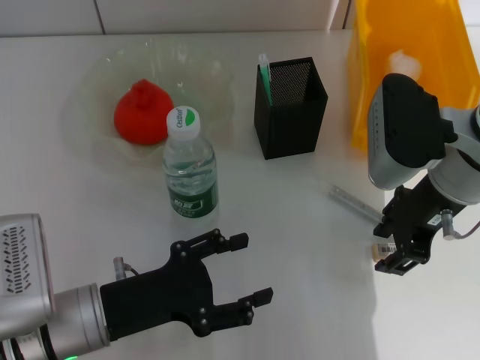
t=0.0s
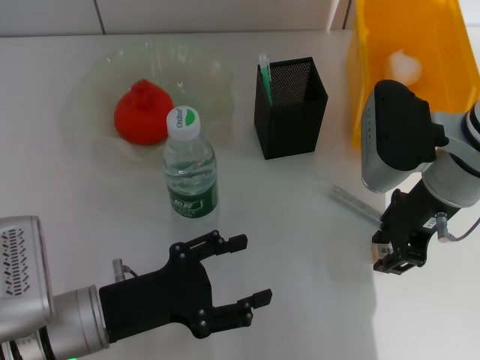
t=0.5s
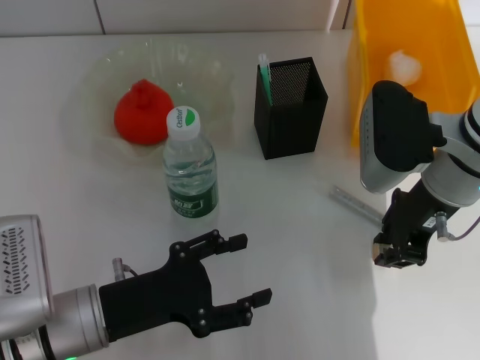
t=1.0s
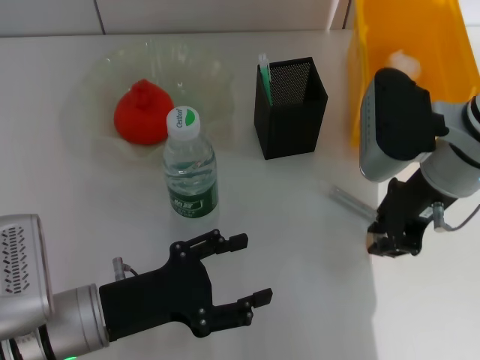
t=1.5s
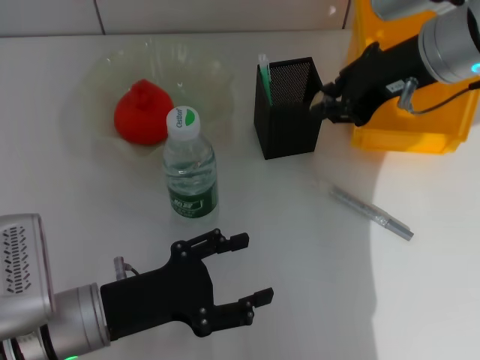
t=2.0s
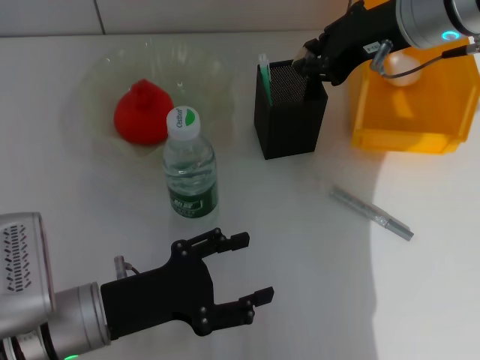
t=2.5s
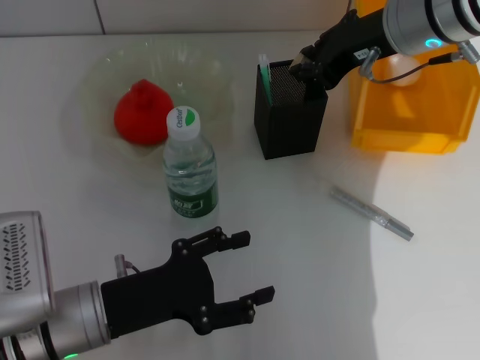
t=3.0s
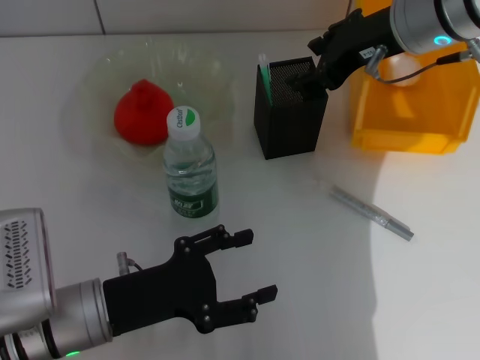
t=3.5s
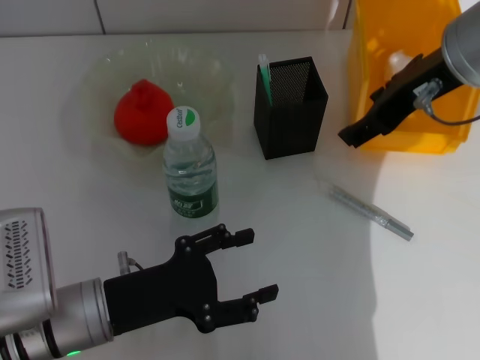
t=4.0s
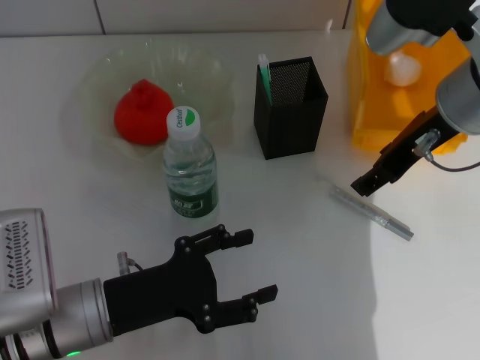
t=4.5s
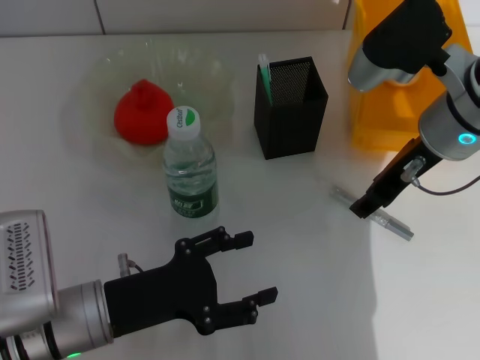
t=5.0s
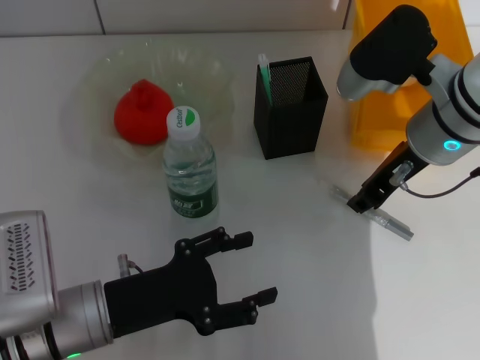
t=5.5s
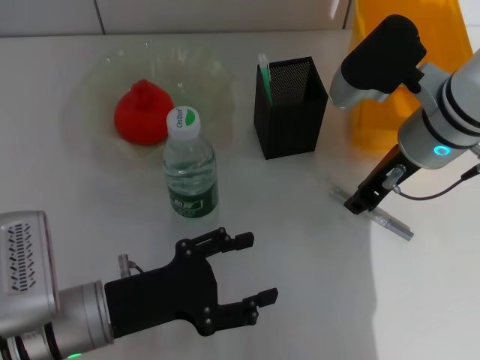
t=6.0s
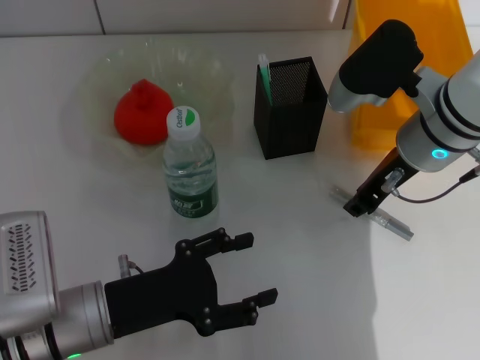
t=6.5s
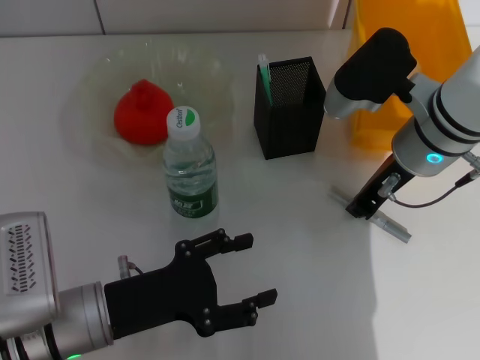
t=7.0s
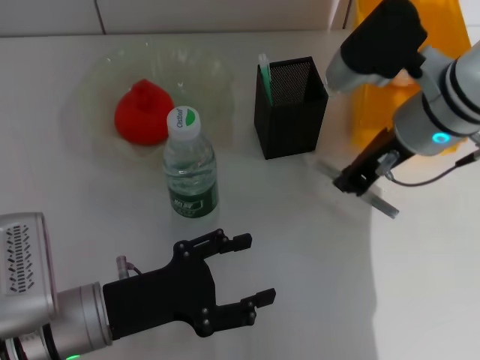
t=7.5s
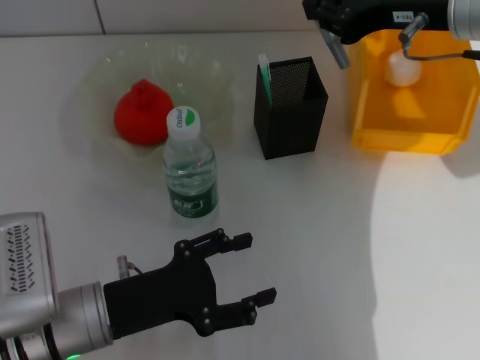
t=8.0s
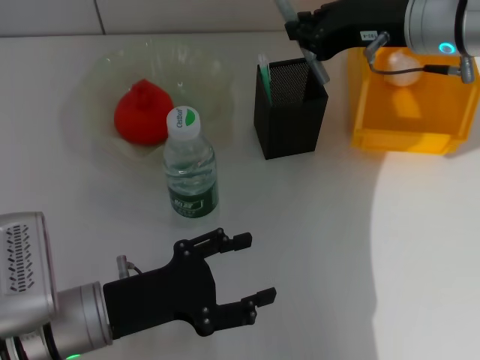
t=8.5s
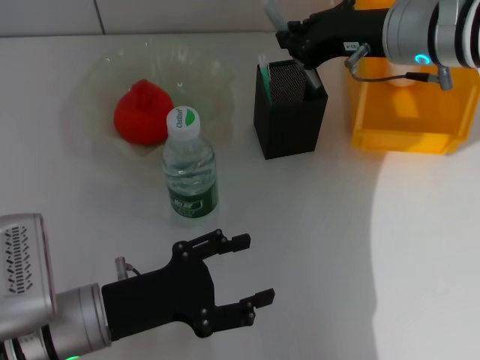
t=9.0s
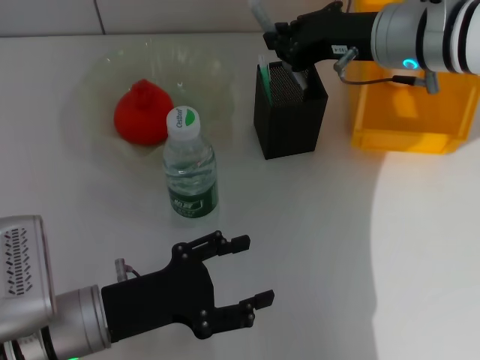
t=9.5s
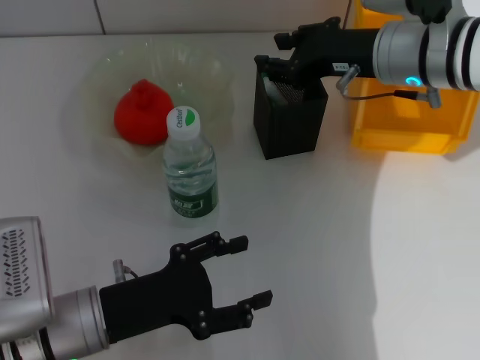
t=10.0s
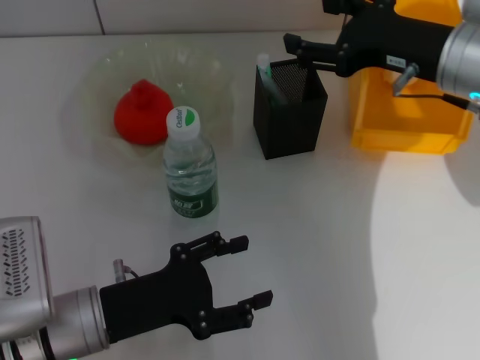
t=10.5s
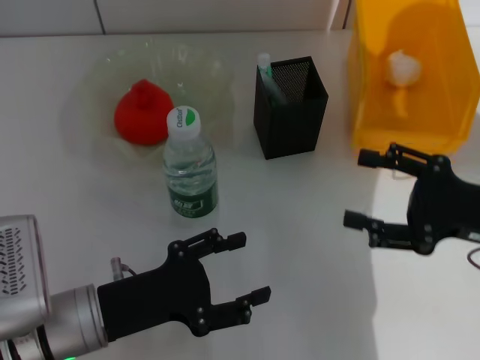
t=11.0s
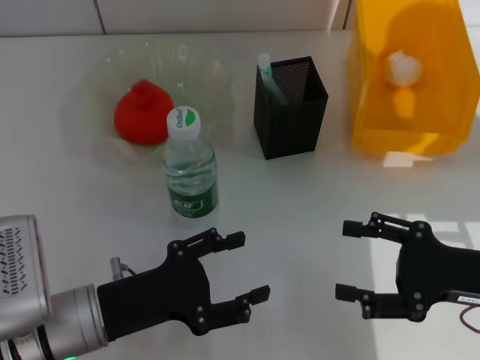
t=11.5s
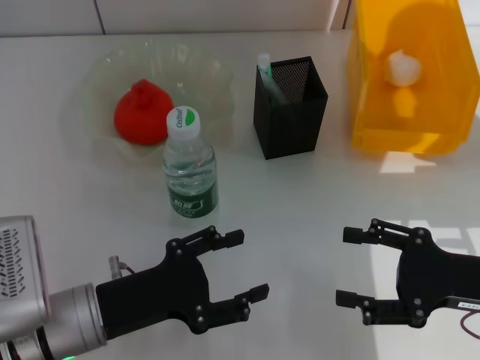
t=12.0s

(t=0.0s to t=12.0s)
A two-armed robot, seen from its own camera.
Step, t=1.0s - t=3.5s: Put the eraser into the pen holder with the right hand.
Step, t=4.0s - t=6.5s: Grab the gray glue with the right hand.
Step, t=7.0s - t=10.0s: Place the gray glue into the pen holder with the right hand.
t=0.0s - t=2.0s: The right gripper is displaced upward by approximately 10 cm, and closes its fingers.
t=2.0s - t=4.0s: The right gripper opens its fingers.
t=4.0s - t=6.0s: The right gripper is displaced downward by about 10 cm, and closes up.
t=6.0s - t=8.0s: The right gripper heads upward, covering about 10 cm.
t=8.0s - t=10.0s: The right gripper heads downward, covering roughly 5 cm.
t=10.0s - t=12.0s: The right gripper goes about 25 cm backward, to the right and downward, and opens up.

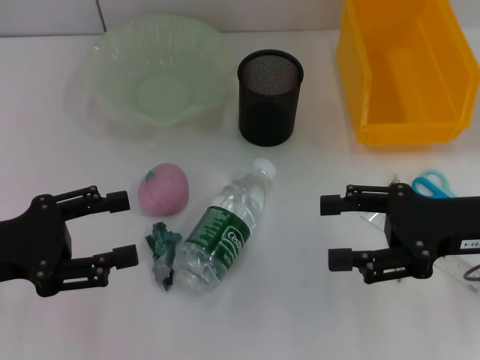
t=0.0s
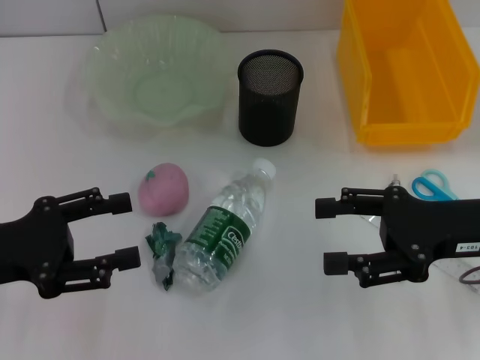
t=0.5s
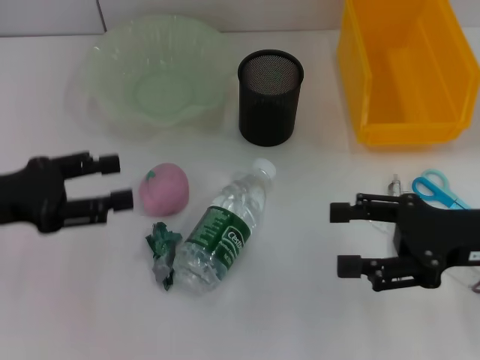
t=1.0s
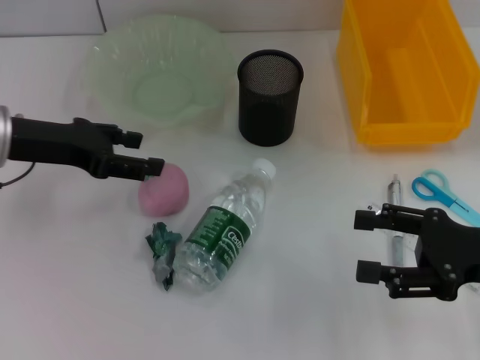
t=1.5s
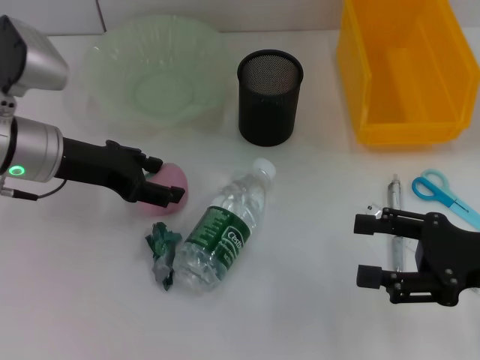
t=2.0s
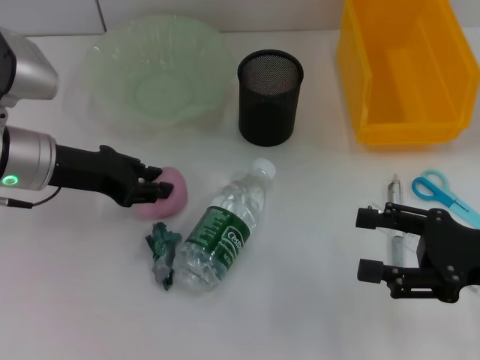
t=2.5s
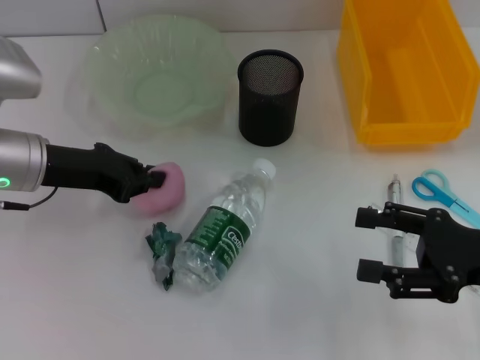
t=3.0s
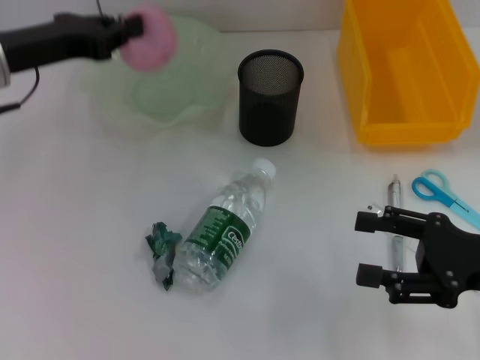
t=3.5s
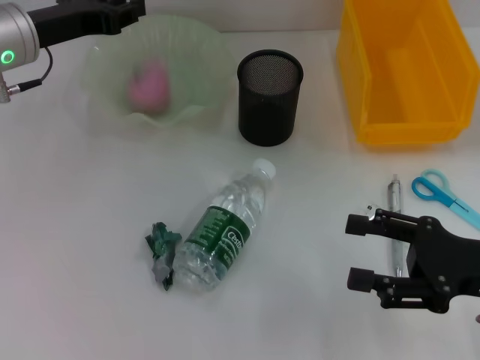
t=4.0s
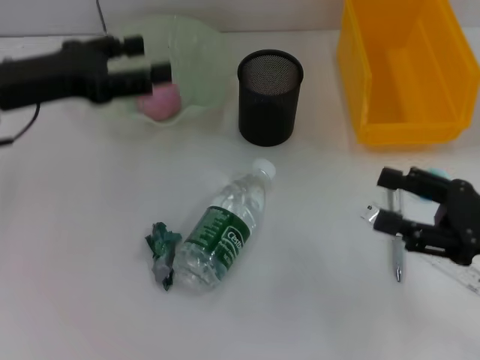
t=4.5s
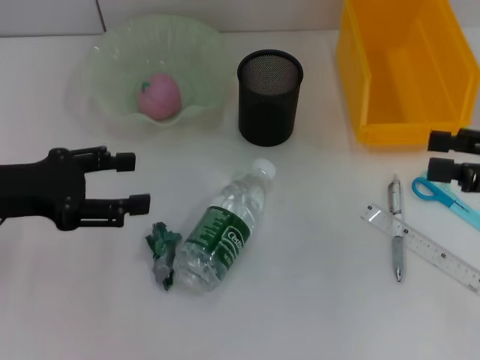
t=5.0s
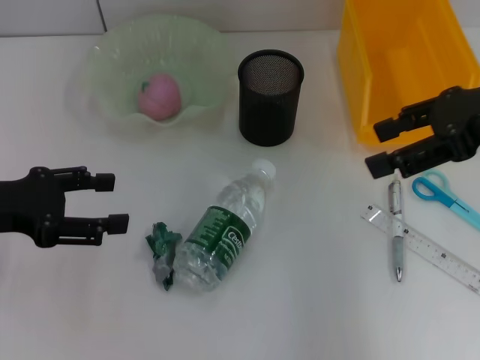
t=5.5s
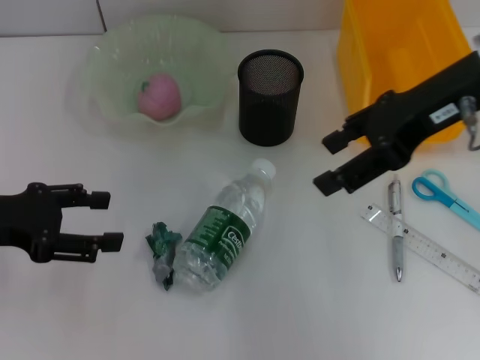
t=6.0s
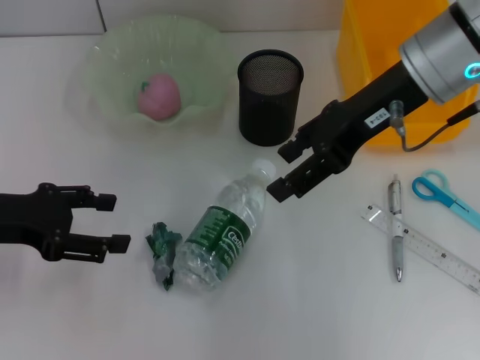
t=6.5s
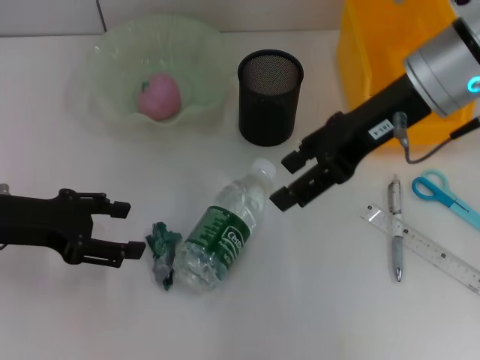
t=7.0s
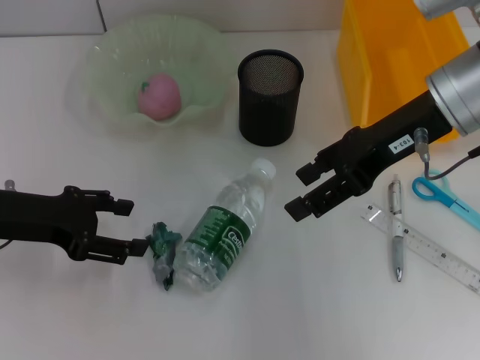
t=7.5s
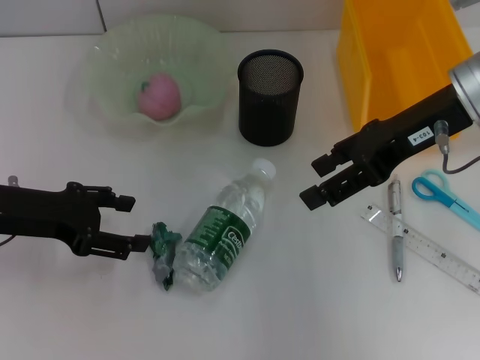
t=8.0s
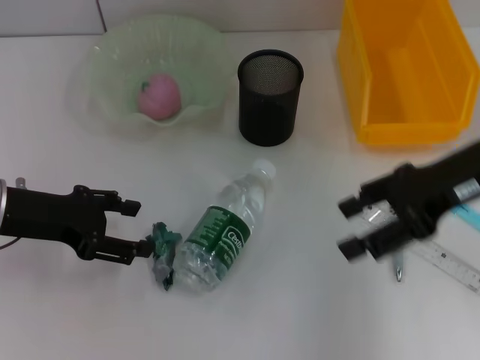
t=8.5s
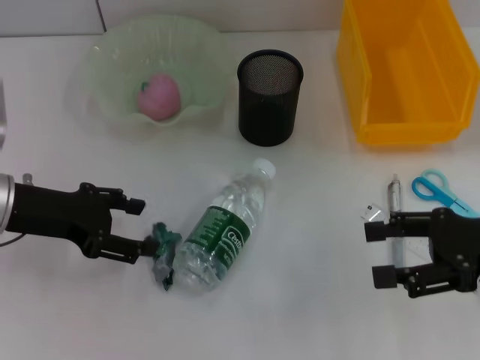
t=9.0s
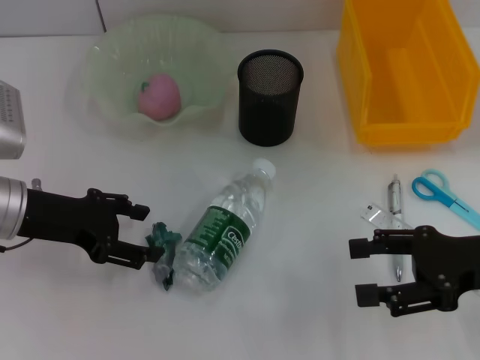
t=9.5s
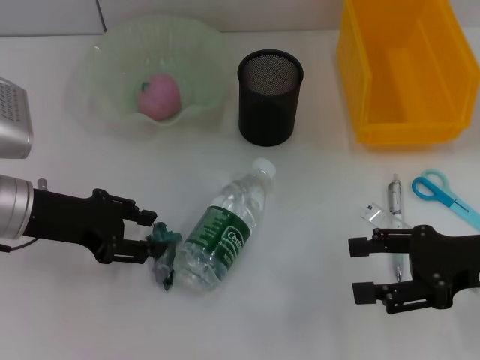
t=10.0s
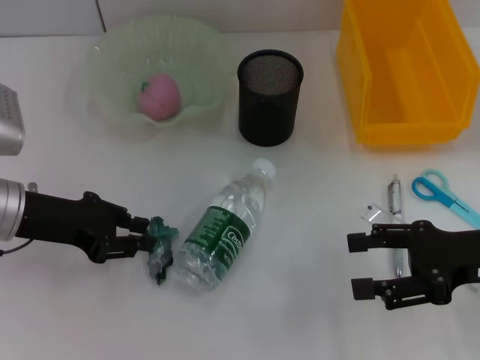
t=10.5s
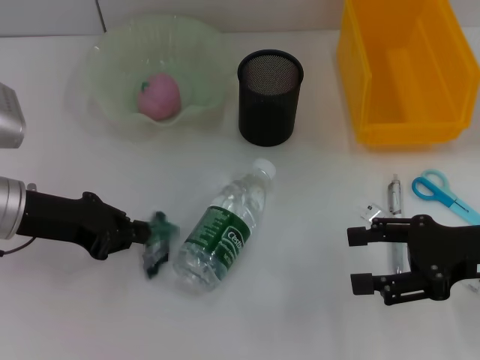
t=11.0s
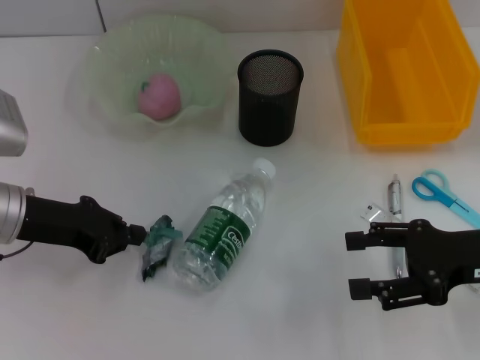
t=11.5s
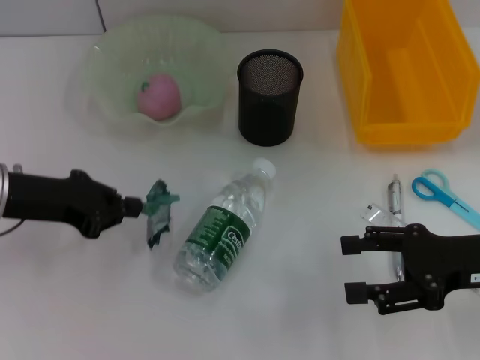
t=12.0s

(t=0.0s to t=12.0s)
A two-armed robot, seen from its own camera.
Step, t=0.0s - t=2.5s: Grab the peach with the left hand.
Step, t=3.5s - t=4.0s: Place the peach into the fruit bowl with the left hand.
Step, t=4.5s - t=11.5s: Grab the plastic with the left hand.
t=0.0s - t=2.0s: The right gripper ends up about 5 cm from where it was. The left gripper is displaced forward and to the right by about 15 cm.
t=2.0s - t=4.0s: The left gripper moves forward, roughly 5 cm, and closes up.
t=4.0s - t=6.0s: The right gripper moves upward, forward and to the left, about 25 cm; the left gripper shifts about 15 cm backward and to the left, and opens its fingers.
t=6.0s - t=8.0s: The grippers stay close to where they were, moving slightly.
t=8.0s - t=10.0s: The right gripper shifts approximately 20 cm downward, backward and to the right.
t=10.0s - t=12.0s: The left gripper closes up.

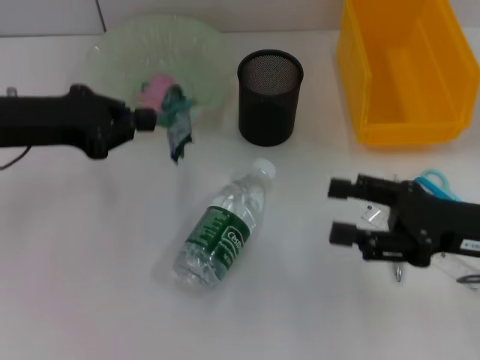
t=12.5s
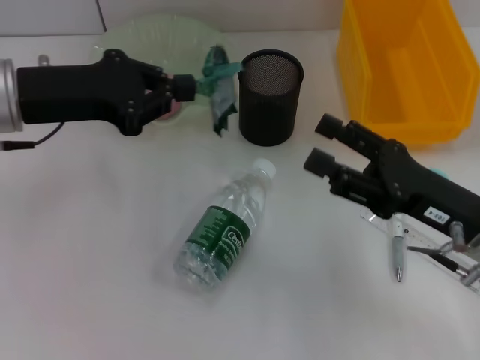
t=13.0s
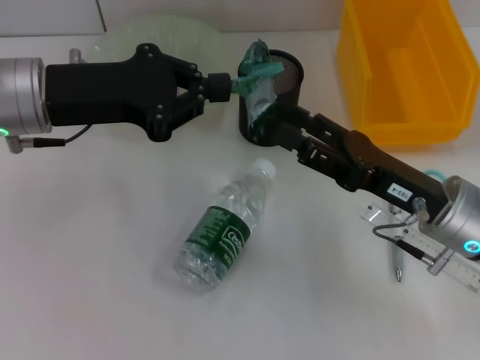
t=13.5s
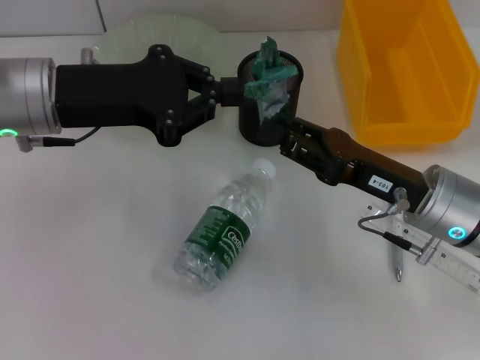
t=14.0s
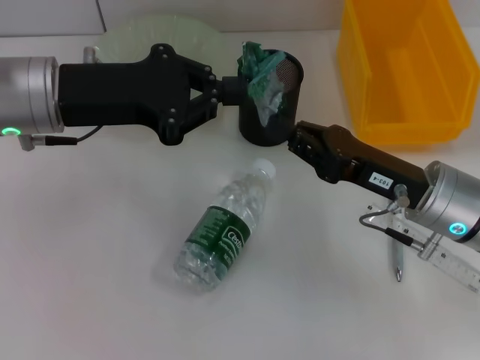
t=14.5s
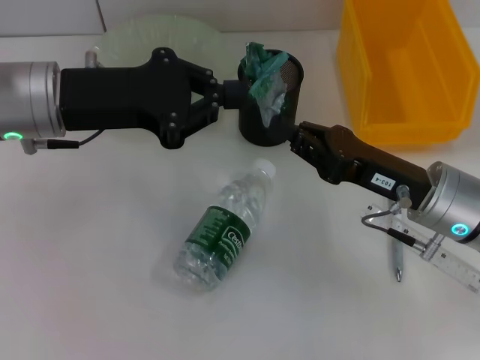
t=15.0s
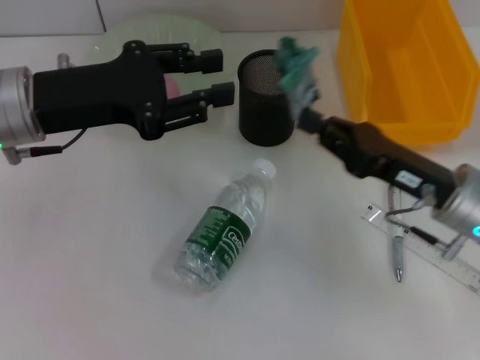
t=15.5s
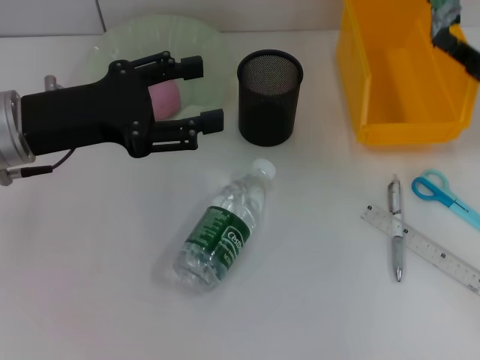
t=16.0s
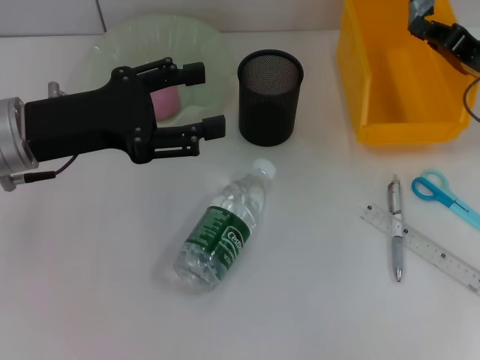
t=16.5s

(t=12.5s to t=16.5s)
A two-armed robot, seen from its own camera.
Step, t=12.5s - t=15.0s: Pass the plastic from the left hand to the right hand.
t=12.5s - t=14.5s: The left gripper shifts some 5 cm to the right; the right gripper heads to the left, covering roughly 5 cm, and closes.
t=14.5s - t=16.5s: The right gripper goes some 15 cm to the right and forward. The left gripper opens up.
